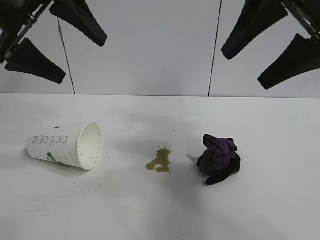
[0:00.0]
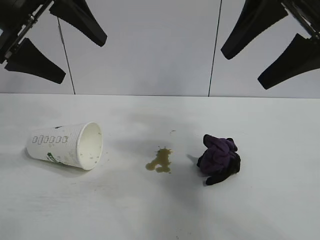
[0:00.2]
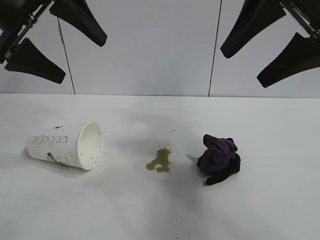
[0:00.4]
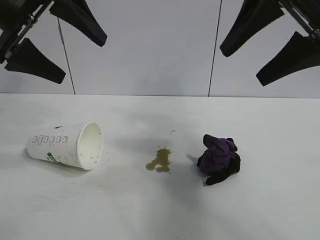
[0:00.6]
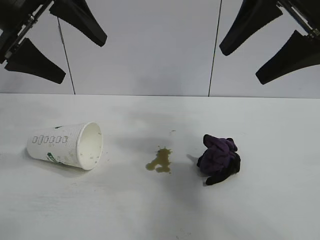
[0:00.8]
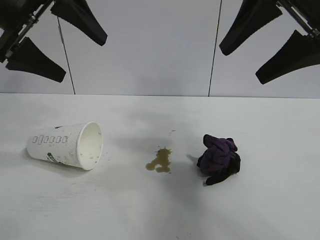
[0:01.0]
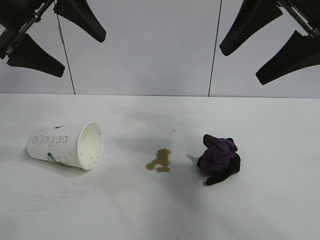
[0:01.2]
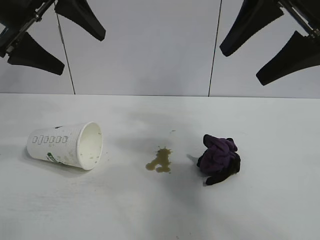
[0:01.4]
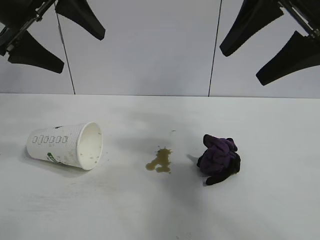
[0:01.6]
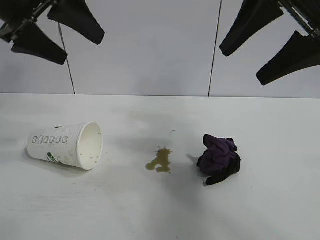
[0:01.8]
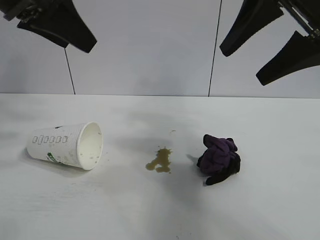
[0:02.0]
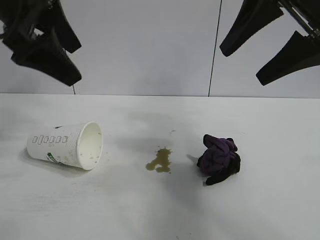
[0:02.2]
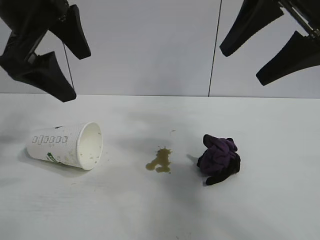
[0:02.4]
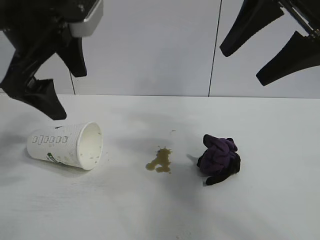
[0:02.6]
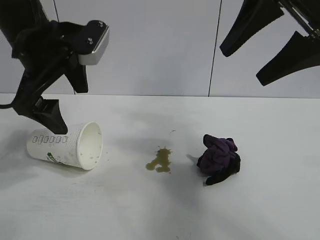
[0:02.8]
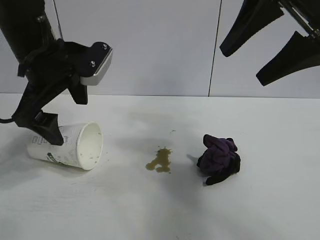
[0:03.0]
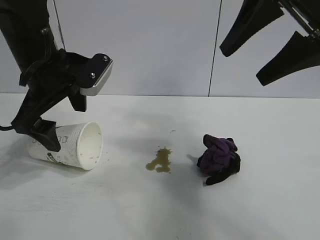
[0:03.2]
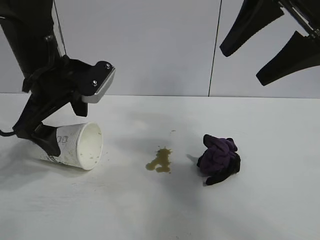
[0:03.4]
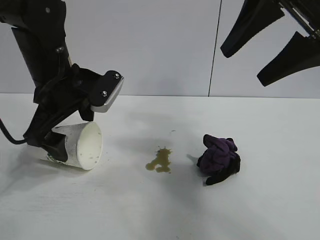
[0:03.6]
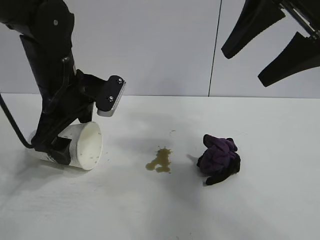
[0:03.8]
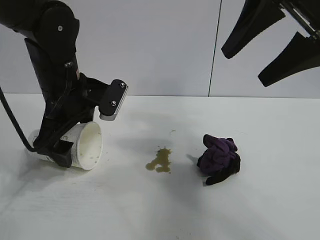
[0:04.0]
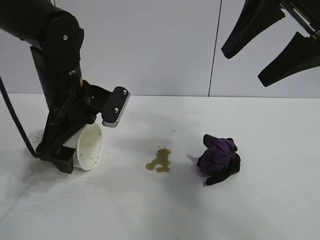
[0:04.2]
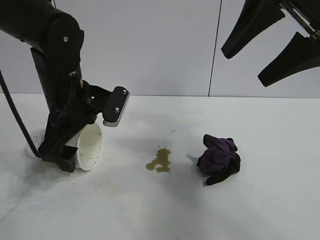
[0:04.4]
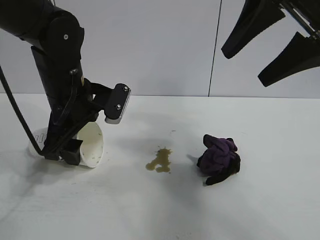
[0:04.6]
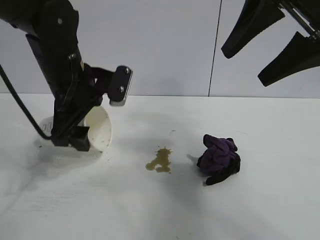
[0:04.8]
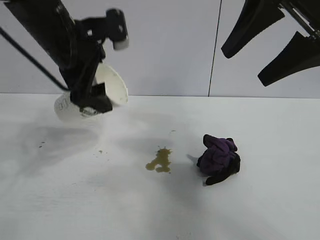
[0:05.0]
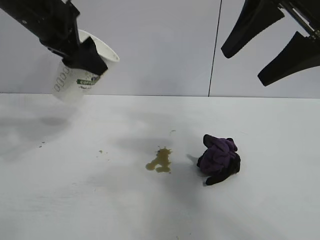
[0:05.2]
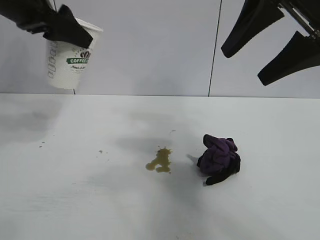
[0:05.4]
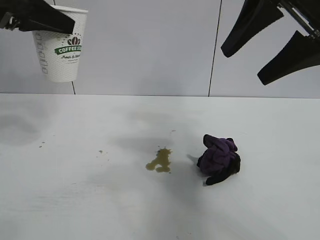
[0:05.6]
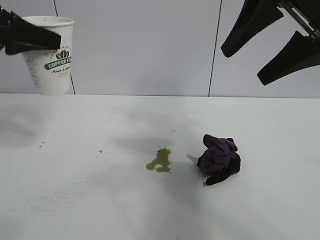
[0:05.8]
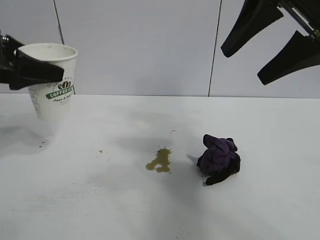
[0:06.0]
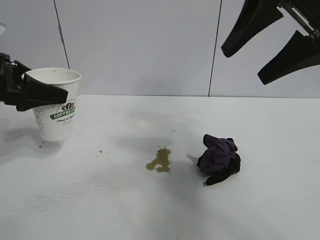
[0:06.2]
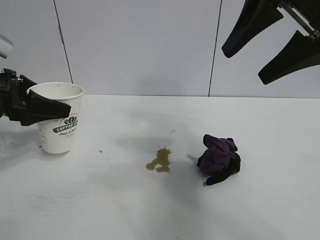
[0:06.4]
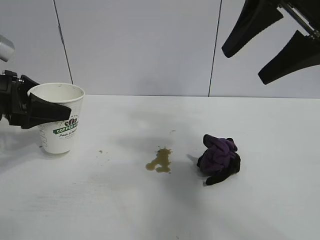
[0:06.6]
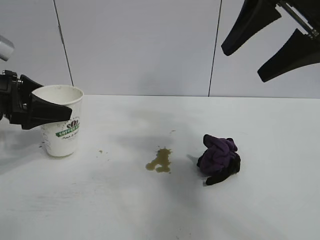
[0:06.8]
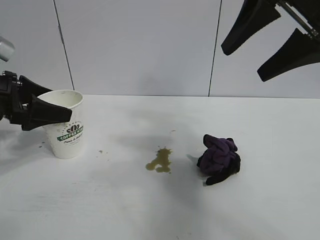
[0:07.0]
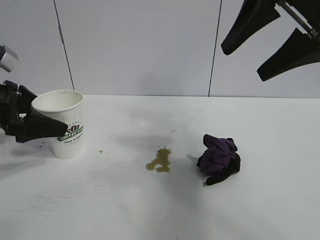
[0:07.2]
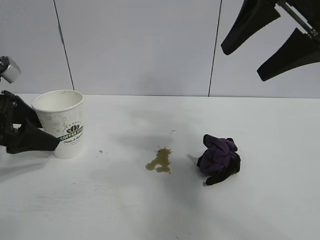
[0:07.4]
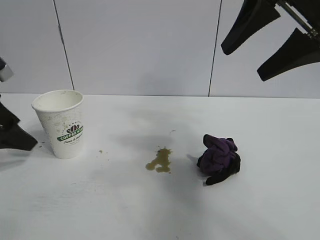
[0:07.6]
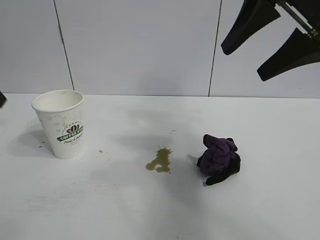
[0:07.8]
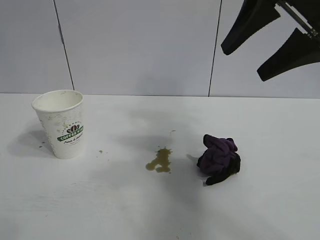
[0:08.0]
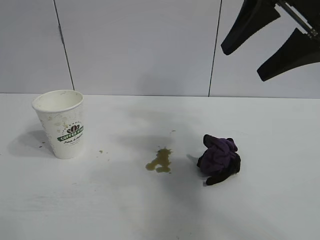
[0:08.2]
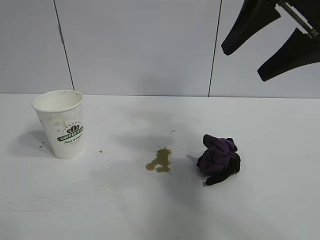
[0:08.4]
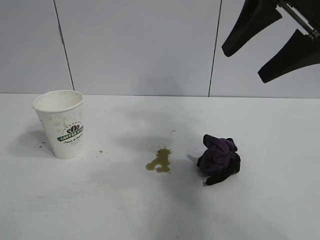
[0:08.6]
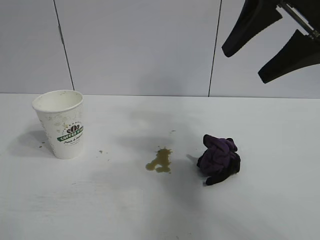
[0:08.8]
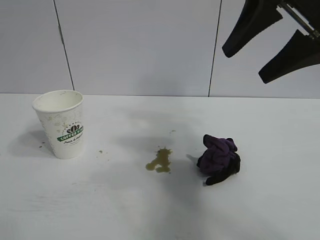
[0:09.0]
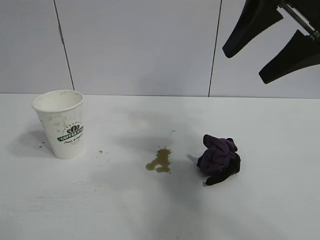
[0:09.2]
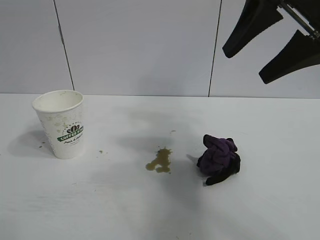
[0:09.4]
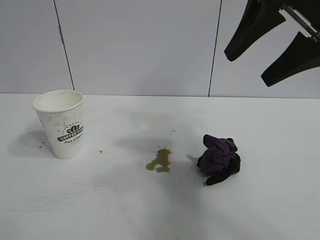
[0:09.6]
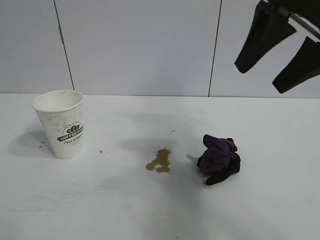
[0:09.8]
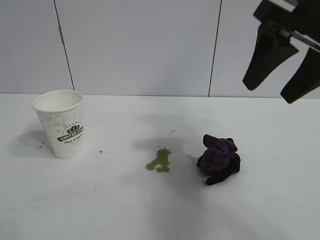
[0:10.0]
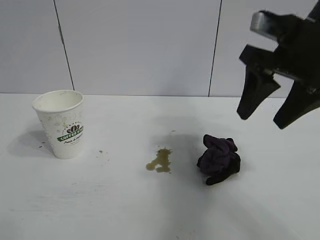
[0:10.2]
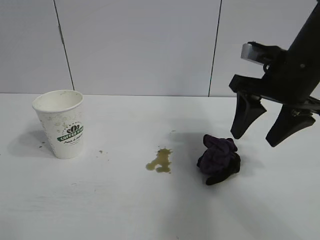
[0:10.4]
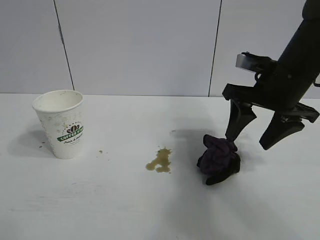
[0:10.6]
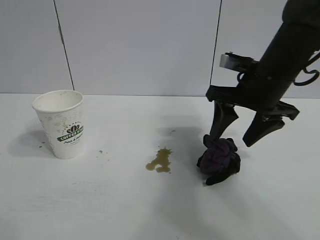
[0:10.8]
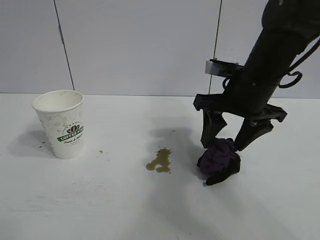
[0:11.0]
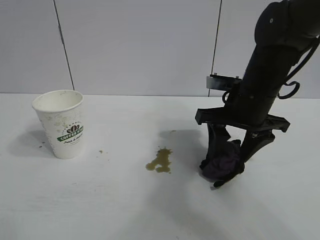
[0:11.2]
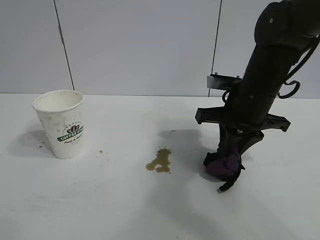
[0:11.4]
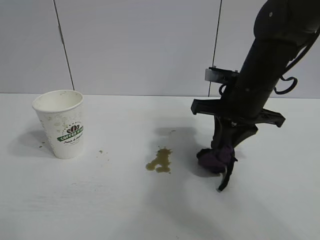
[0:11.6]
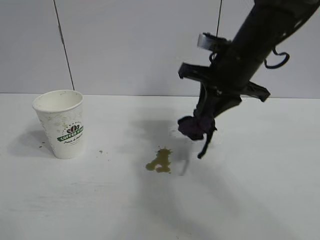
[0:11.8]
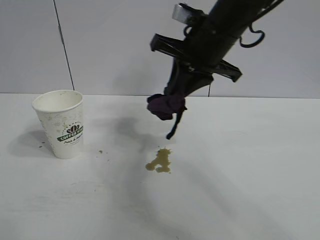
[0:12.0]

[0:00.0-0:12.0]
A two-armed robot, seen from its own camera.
Task of the whole recording: the left gripper pick up the fallen cup and place it upright, the right gripper grasp the black rag and wipe the stain on the table, the right gripper put the black rag back in its original position.
Step, 0:00.0 to 0:04.4: Grasp the paper cup with left gripper.
Step, 0:04.6 to 0:06.8: Stand the paper cup upright with left gripper.
Step, 0:07.2 to 0:11.2: Grasp the rag with right gripper.

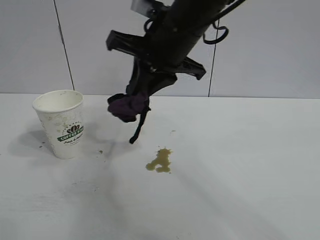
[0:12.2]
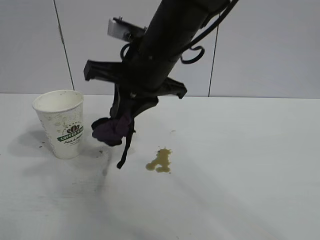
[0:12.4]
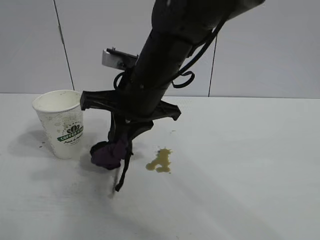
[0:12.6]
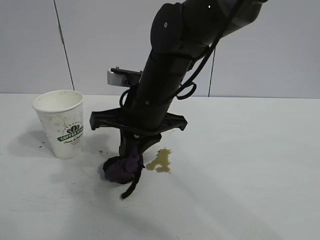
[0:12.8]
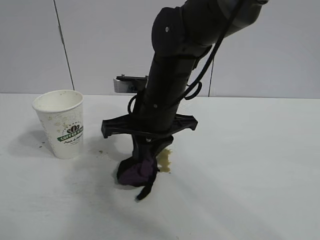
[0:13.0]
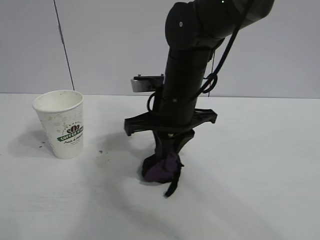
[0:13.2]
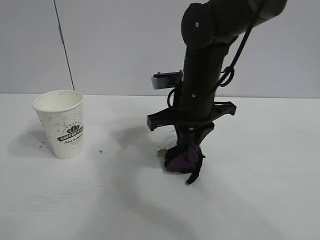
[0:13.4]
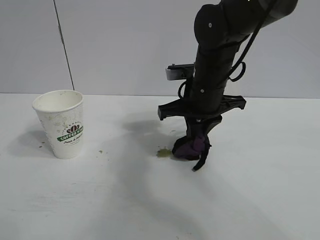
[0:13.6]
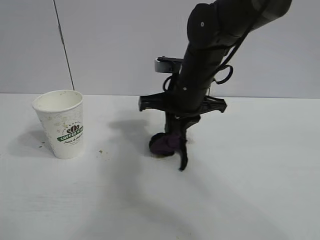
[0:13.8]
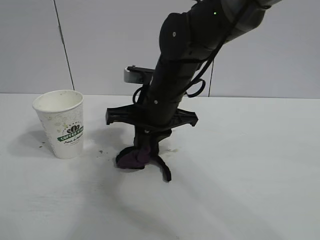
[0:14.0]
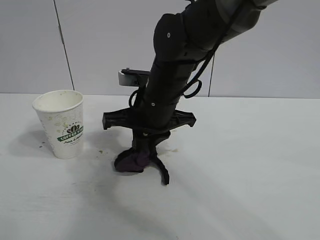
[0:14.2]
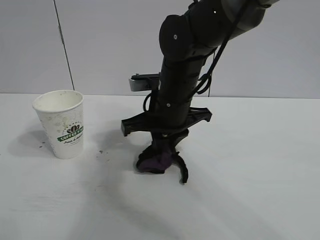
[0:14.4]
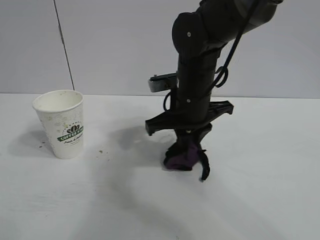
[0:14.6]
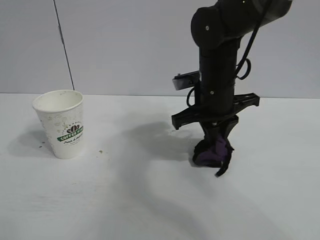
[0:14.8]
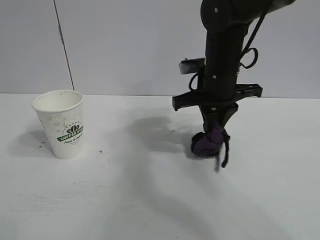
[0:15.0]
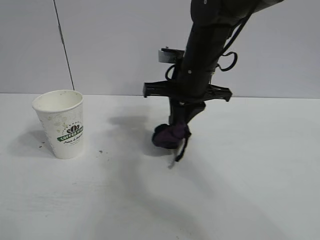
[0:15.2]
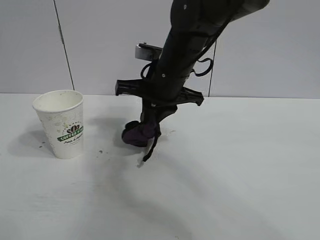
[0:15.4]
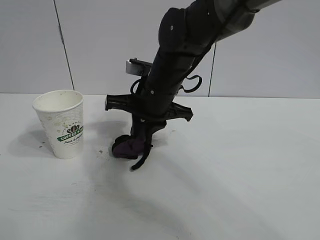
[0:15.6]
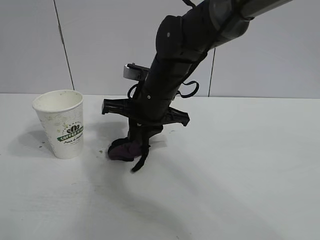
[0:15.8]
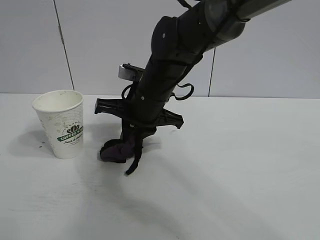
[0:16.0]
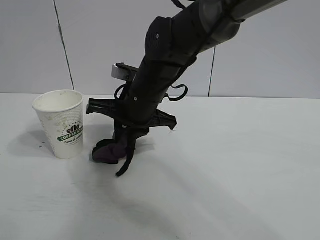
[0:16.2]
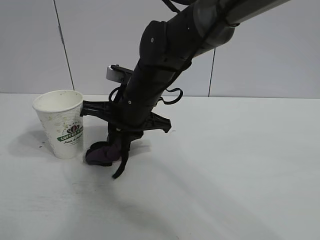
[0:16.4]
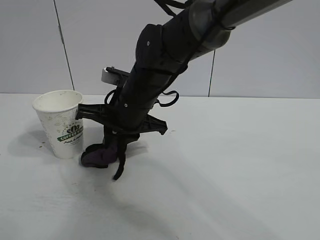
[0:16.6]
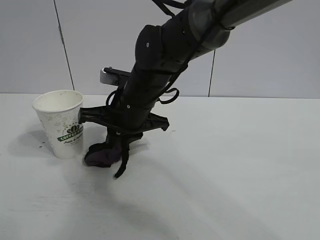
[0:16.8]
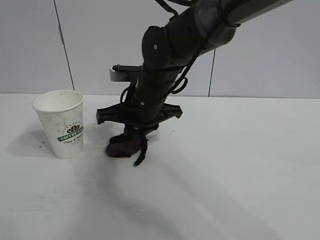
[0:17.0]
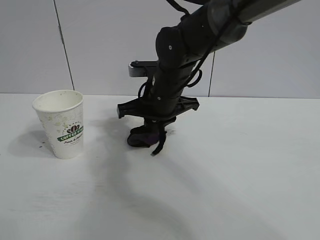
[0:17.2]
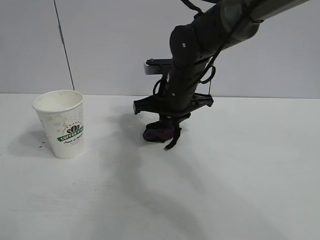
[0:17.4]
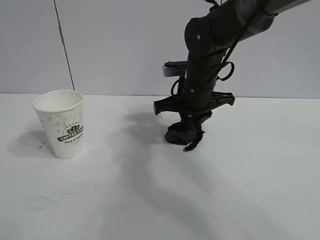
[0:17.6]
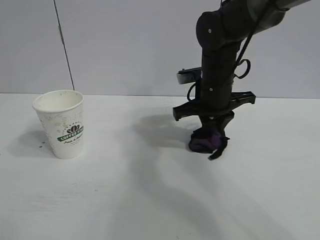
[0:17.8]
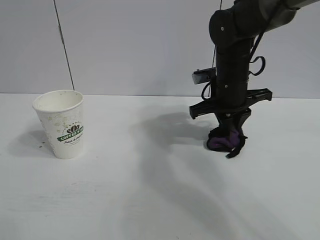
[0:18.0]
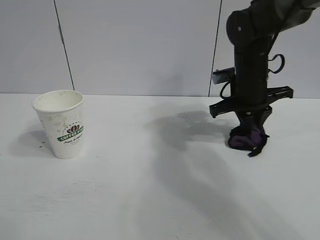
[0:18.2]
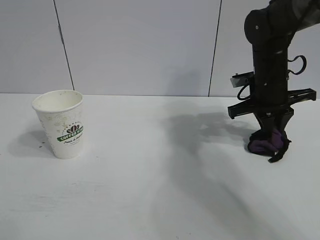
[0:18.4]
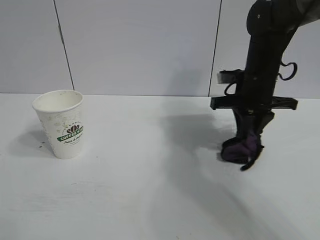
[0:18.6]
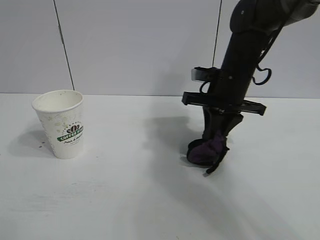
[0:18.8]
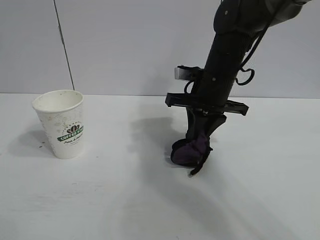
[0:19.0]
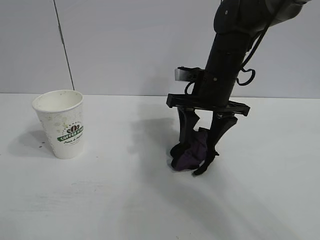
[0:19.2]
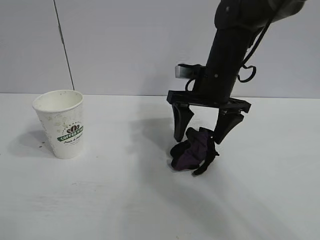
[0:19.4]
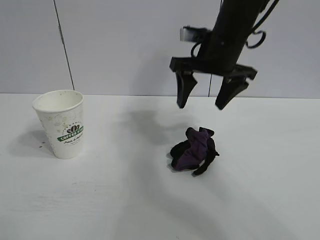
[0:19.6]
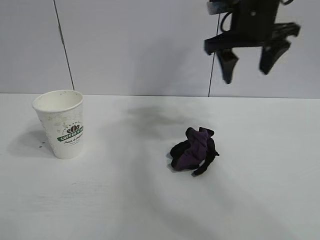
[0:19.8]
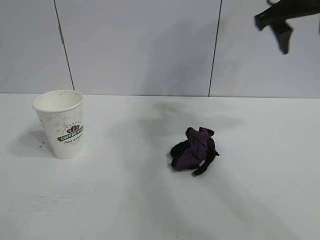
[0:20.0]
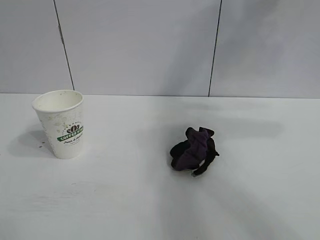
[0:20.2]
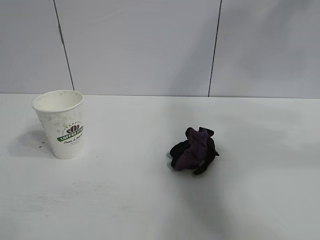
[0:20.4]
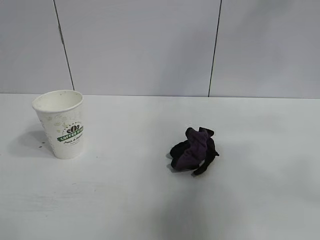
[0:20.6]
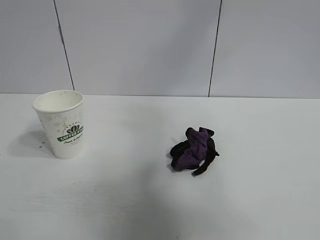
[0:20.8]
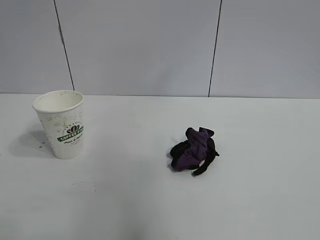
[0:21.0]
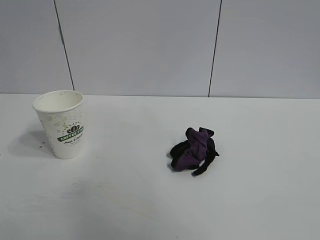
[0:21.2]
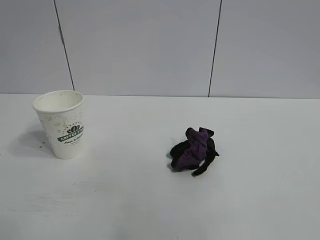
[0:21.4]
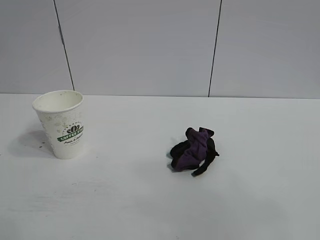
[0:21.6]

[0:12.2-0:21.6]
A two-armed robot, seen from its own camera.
Task of the whole recording: the left gripper pick up the fallen cup and place it upright, the right gripper grasp the black rag and wipe the stain on the table, the right gripper put the black rag back in its original position.
Step, 0:12.2 to 0:18.2: Wipe the stains off the table with the rag with right gripper.
Step, 0:18.6 to 0:19.2: Place the rag on the table with right gripper.
